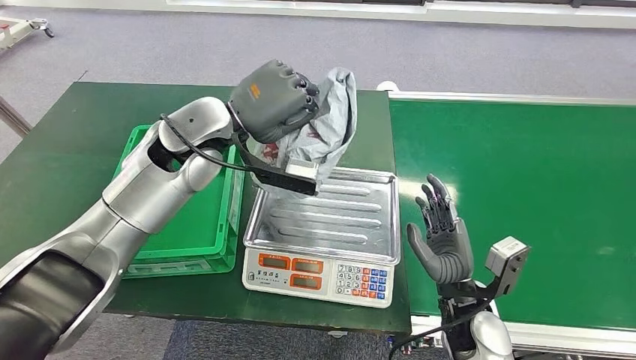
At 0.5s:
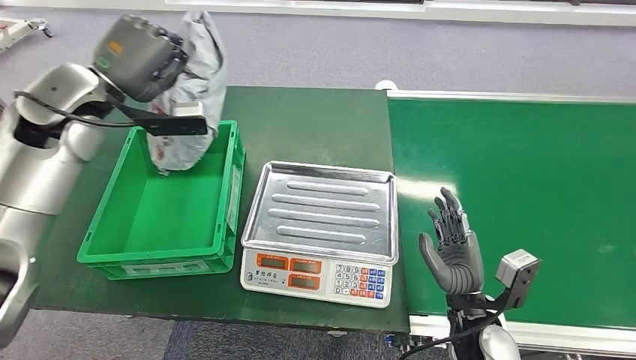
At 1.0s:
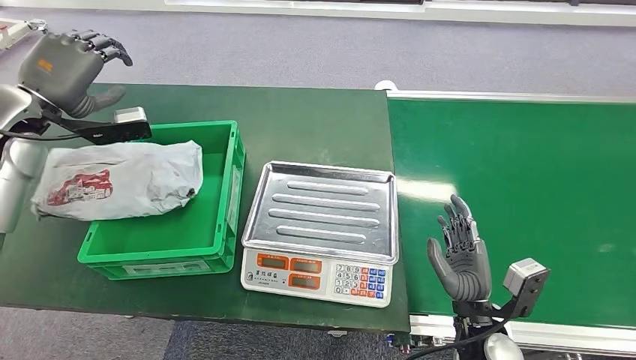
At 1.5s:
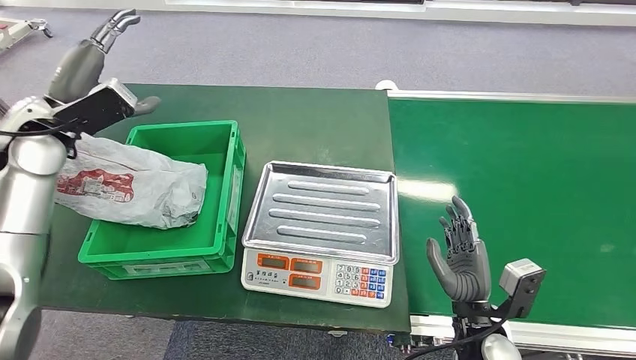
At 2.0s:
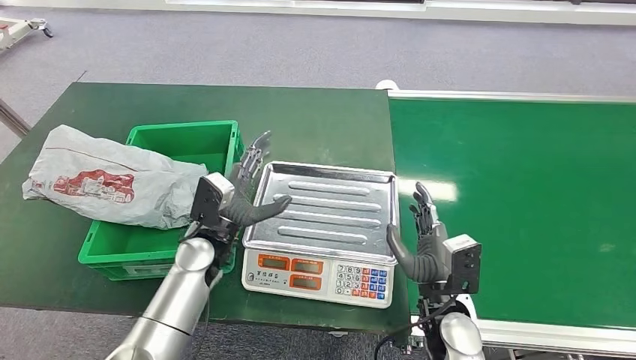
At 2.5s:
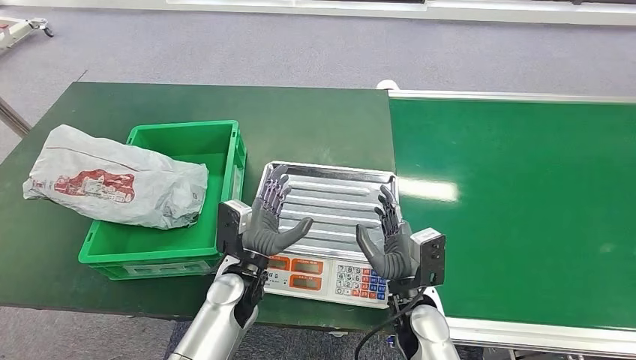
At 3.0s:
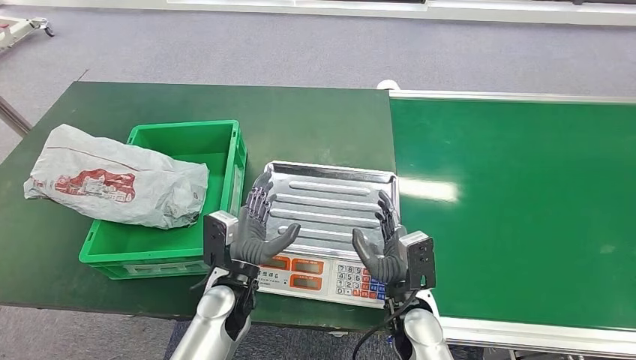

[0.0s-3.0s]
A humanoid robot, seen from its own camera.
Step, 0.0s to 3.0s: Place the package into the parcel locker.

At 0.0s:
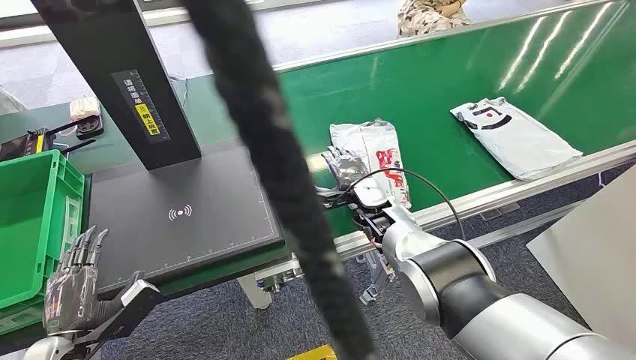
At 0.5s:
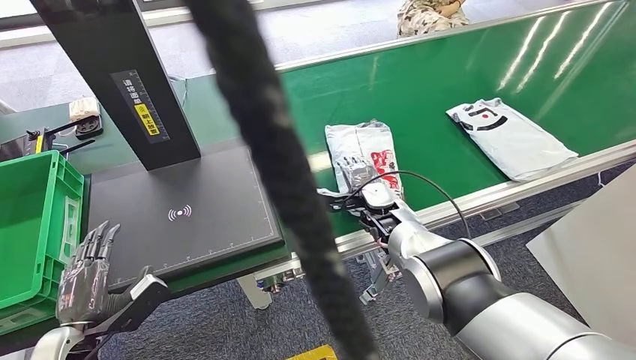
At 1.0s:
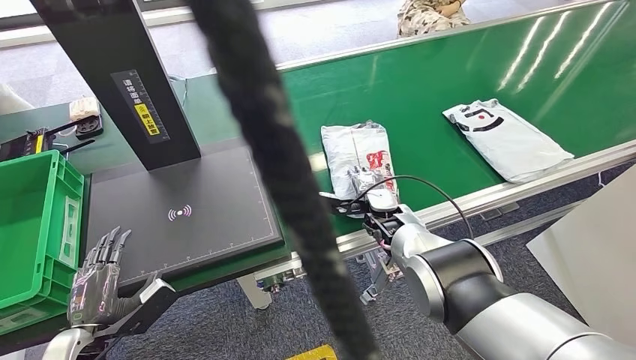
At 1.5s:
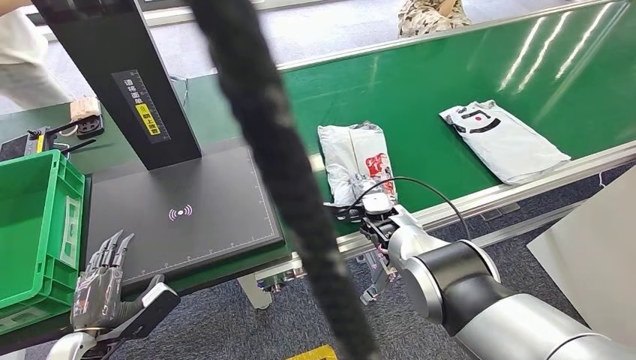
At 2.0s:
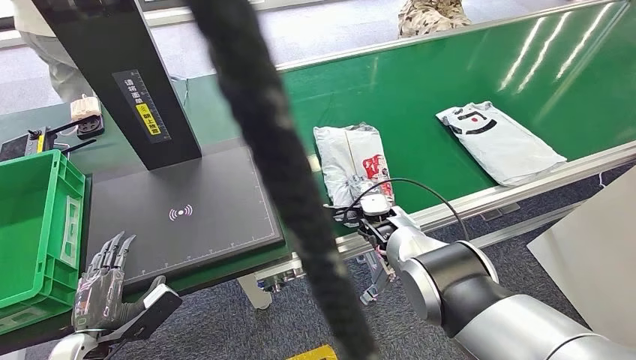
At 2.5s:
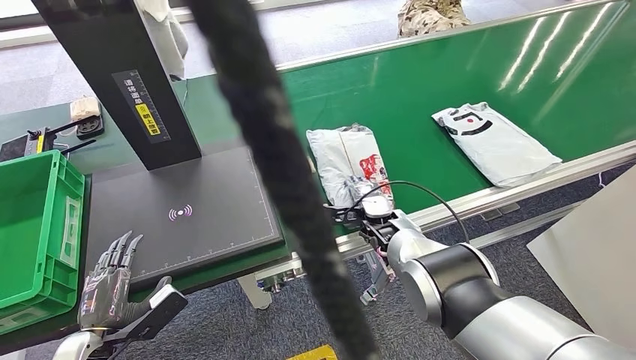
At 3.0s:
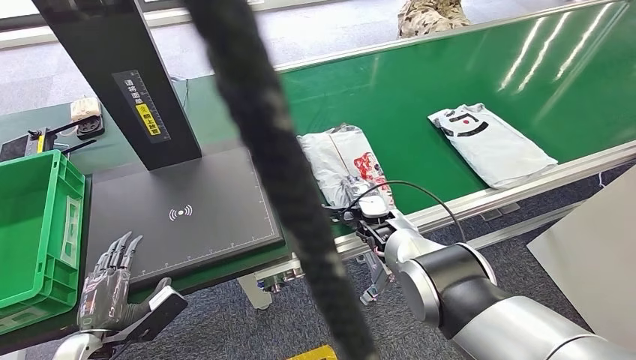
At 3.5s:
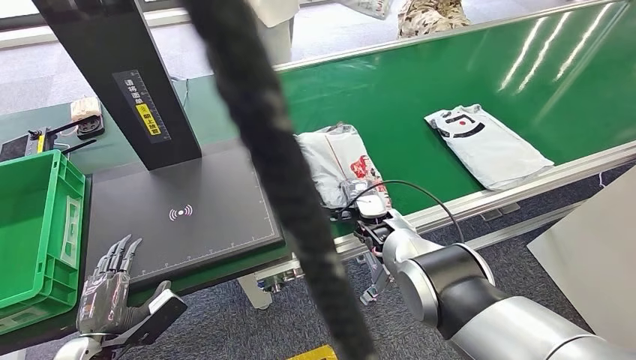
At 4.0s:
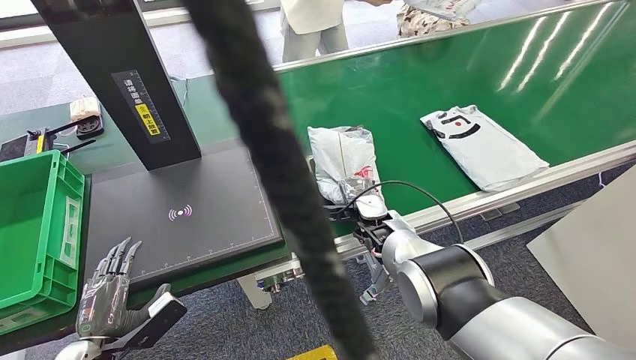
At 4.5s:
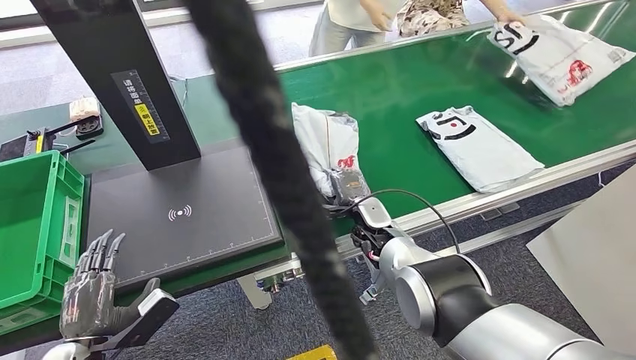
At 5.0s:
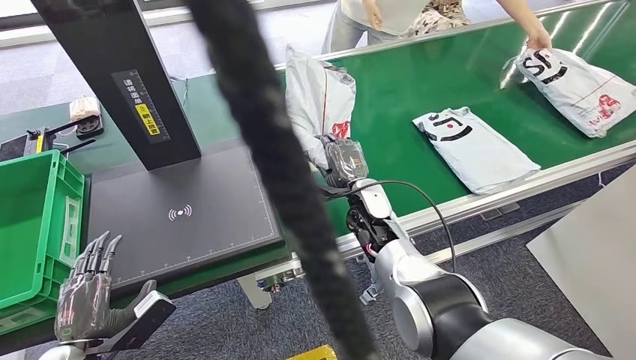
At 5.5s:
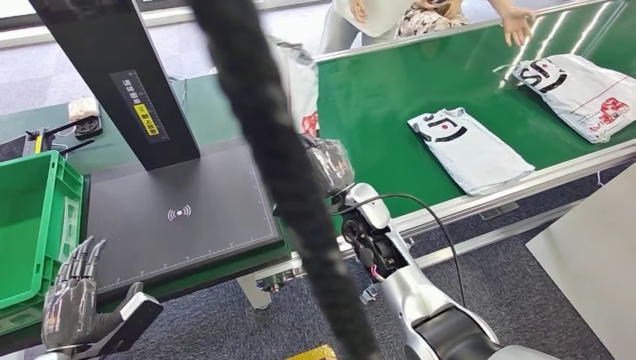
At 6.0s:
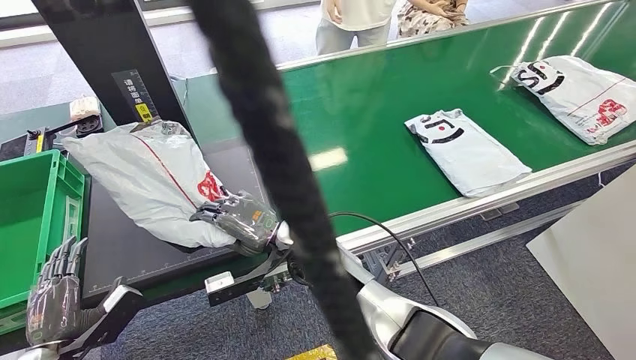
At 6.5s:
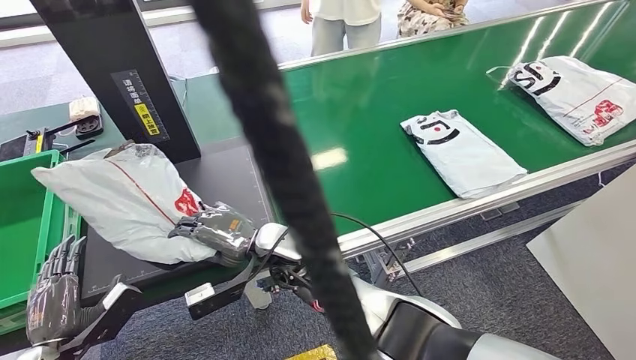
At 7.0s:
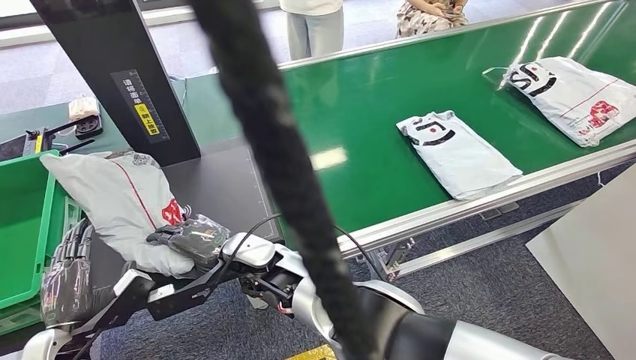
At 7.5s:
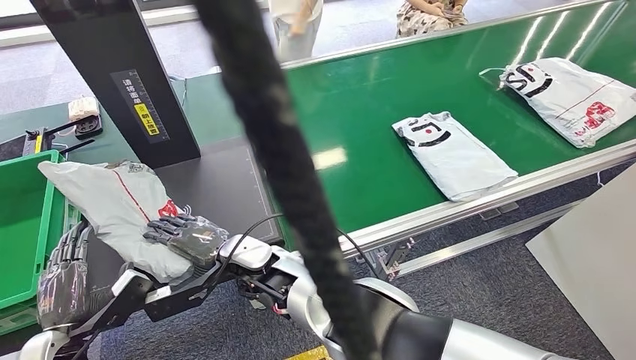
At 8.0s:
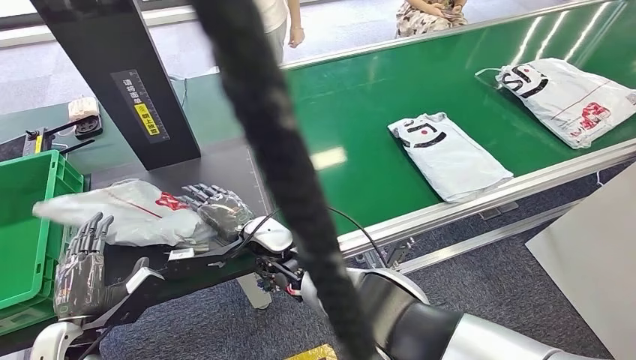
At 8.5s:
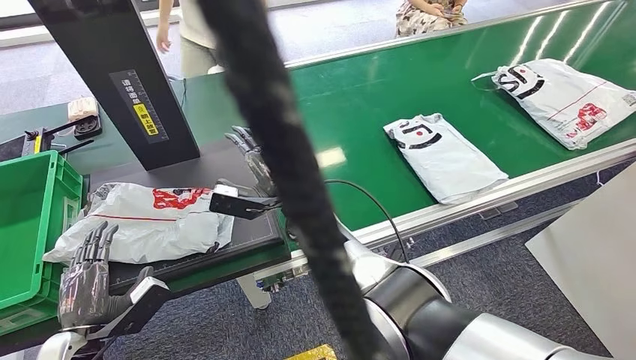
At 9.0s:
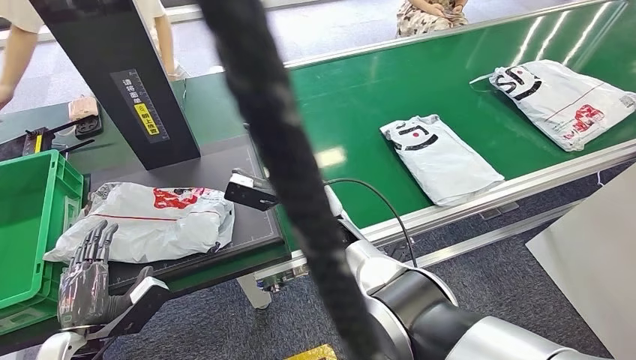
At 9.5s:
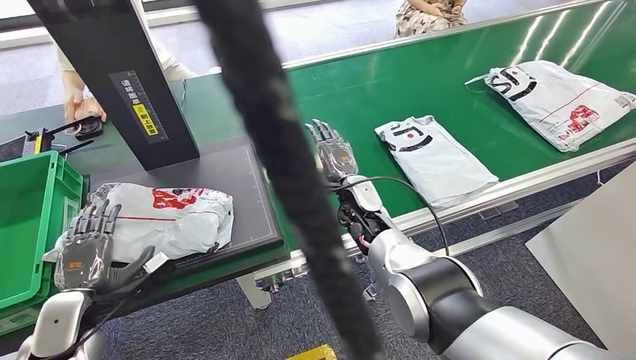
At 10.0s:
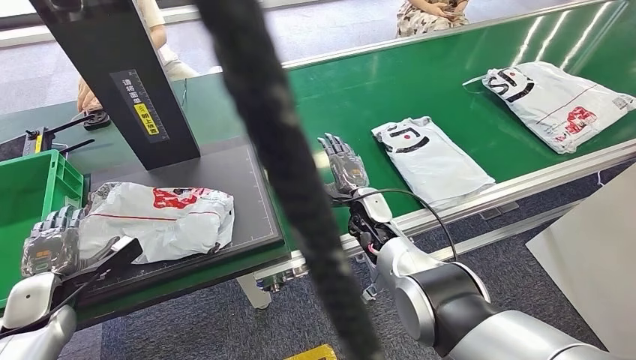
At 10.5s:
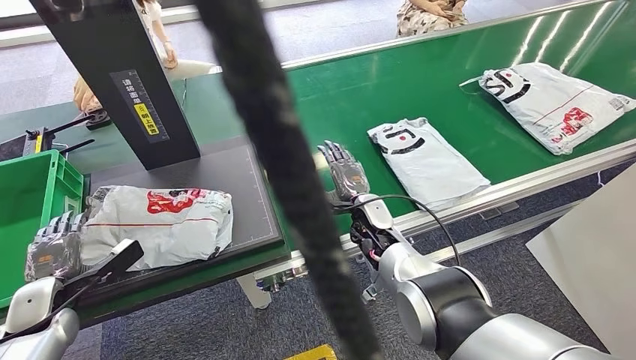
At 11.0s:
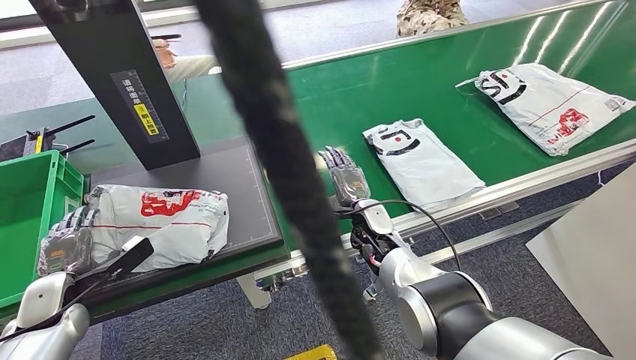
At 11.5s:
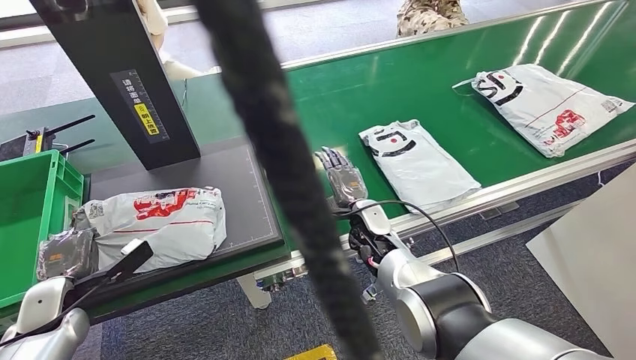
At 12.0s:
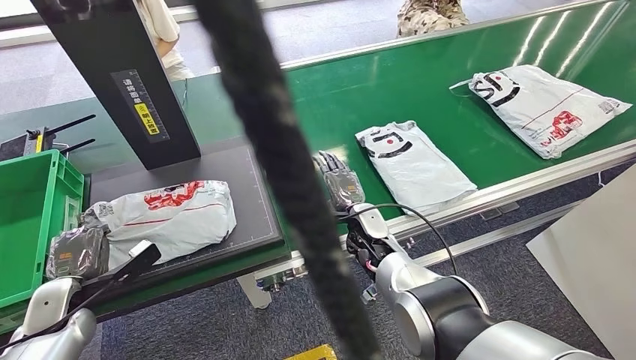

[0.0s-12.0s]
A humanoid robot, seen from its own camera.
Step, 0.0s to 4.5s: Pick up the package from the conveyor belt.
Step, 5.5s to 8.5s: Place the package onto the inbound machine.
2.0s to 4.0s: There are only small adjustments of the hands.

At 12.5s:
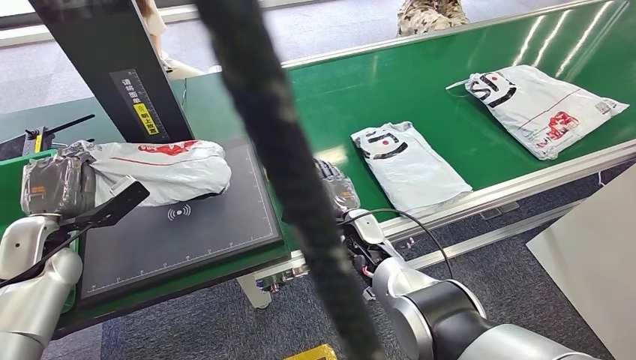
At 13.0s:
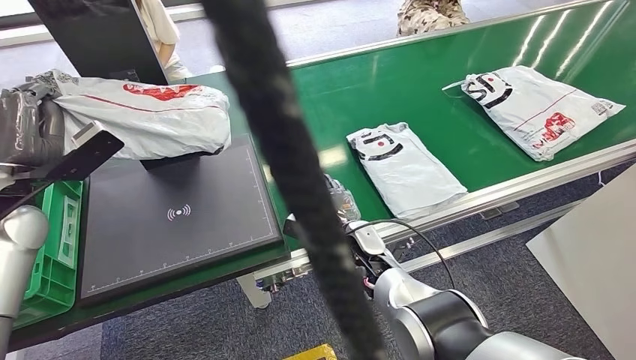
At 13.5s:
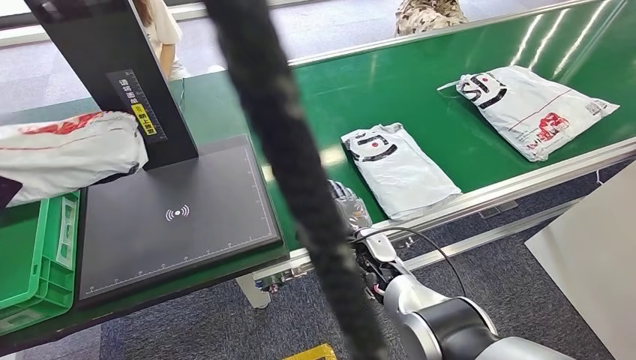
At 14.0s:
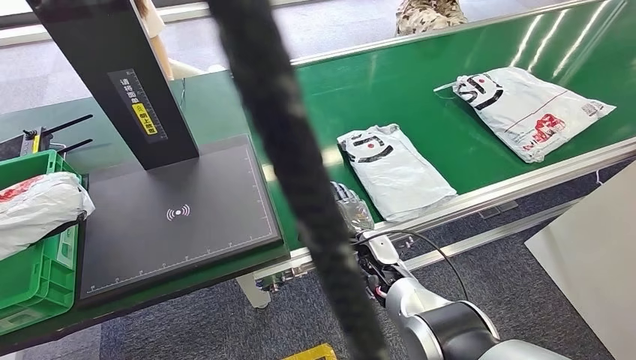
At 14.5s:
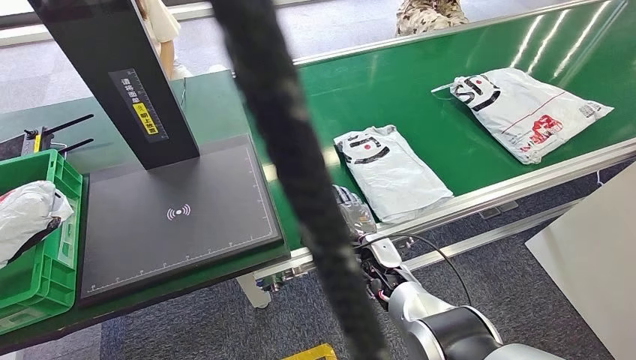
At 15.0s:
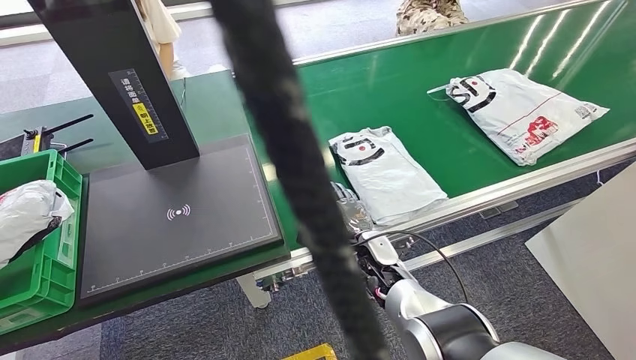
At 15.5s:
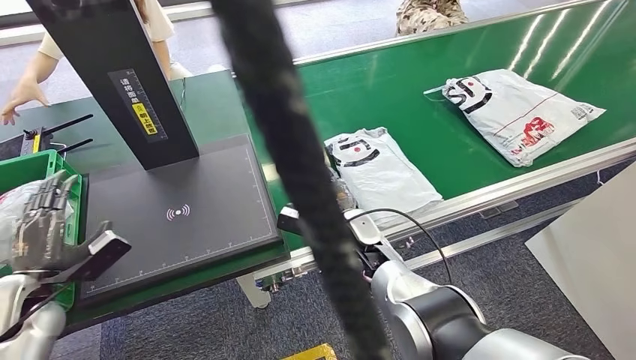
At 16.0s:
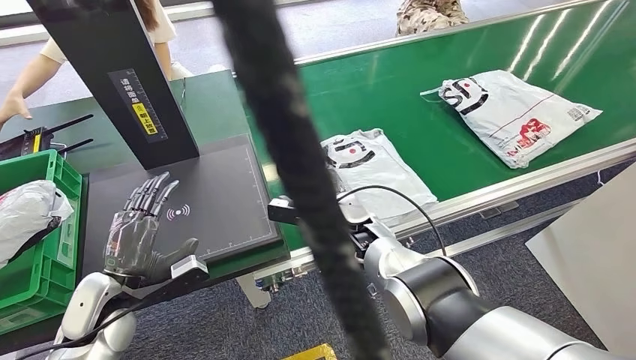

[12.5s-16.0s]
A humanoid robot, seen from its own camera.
Step, 14.0s to 16.0s: Place the package into the parcel locker.
14.5s to 16.0s: The right hand travels forward and upward by about 10 cm; the left hand goes about 30 cm to the right.
